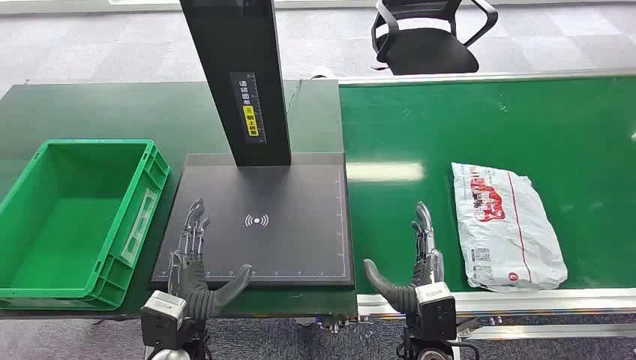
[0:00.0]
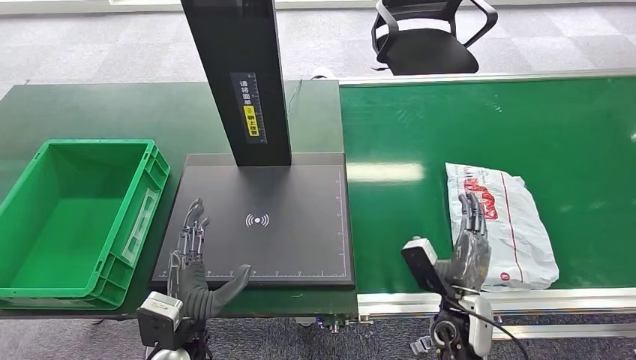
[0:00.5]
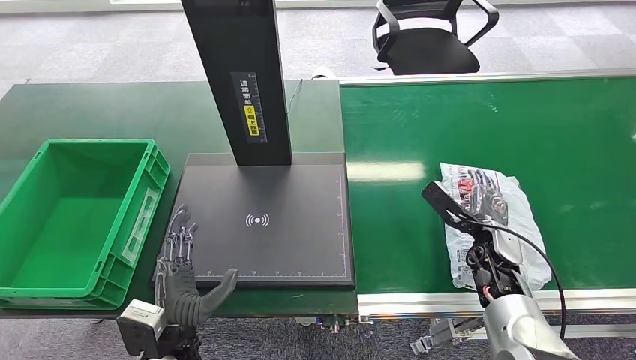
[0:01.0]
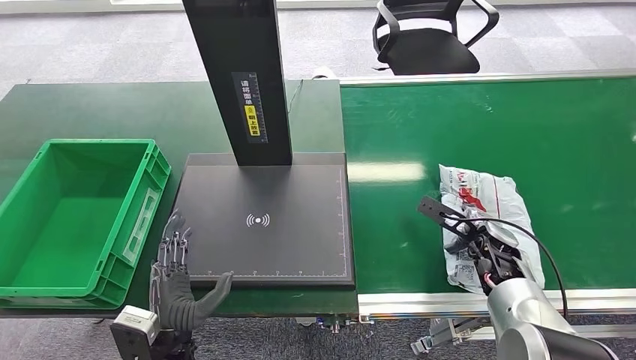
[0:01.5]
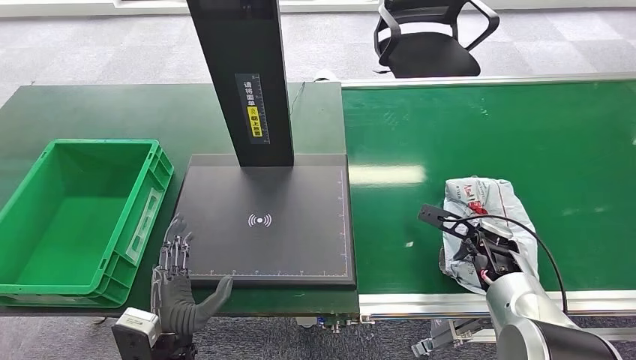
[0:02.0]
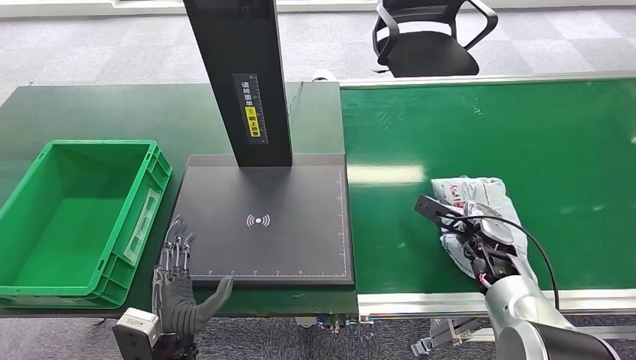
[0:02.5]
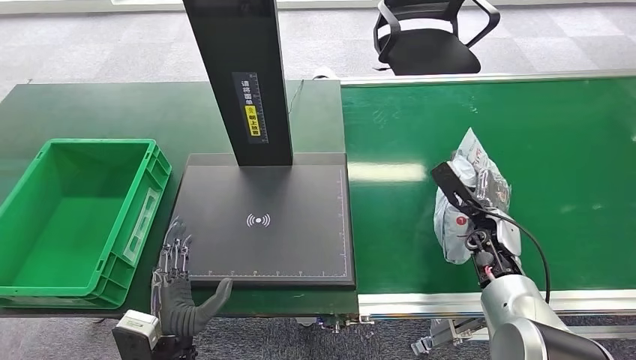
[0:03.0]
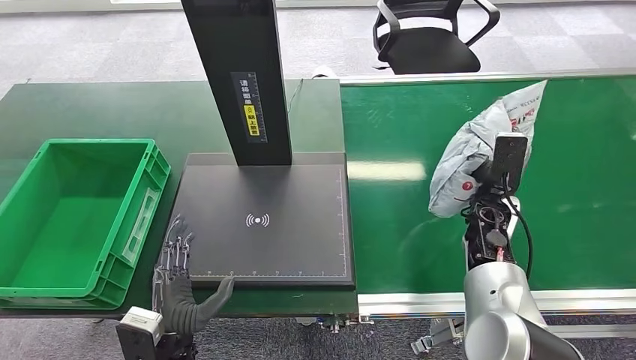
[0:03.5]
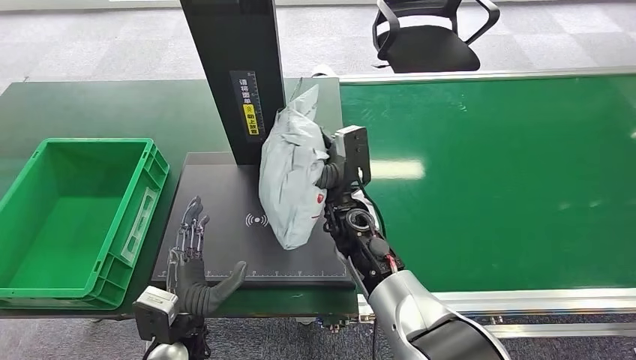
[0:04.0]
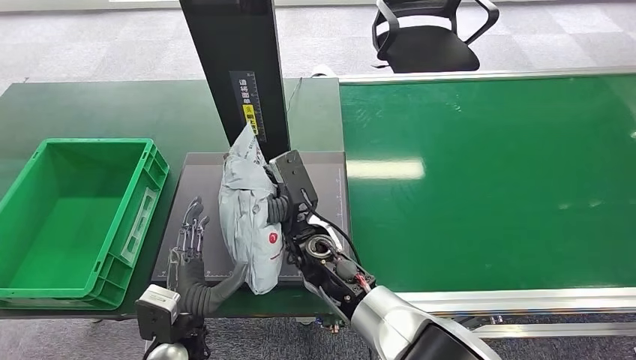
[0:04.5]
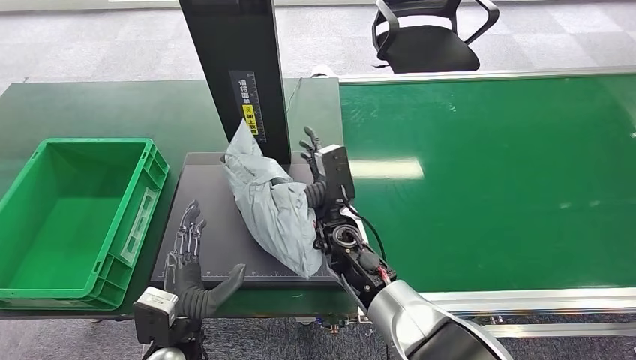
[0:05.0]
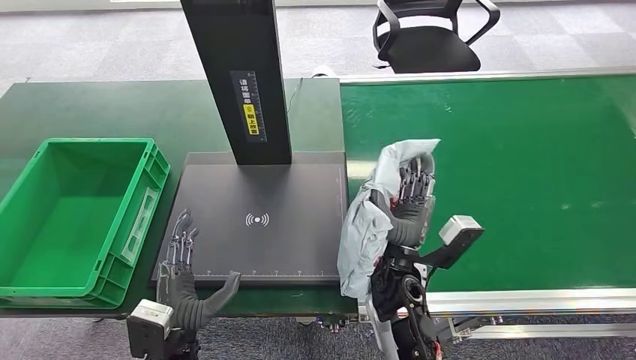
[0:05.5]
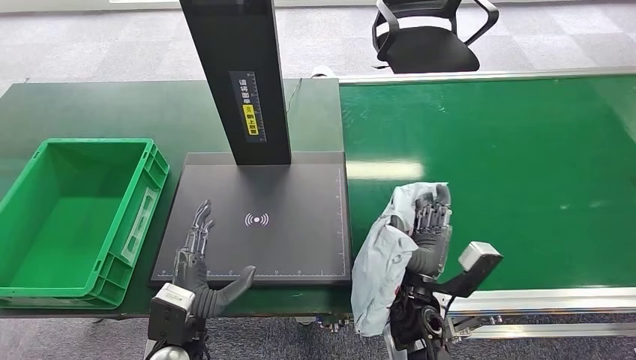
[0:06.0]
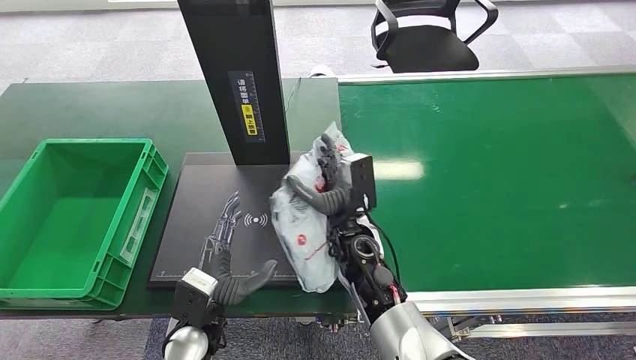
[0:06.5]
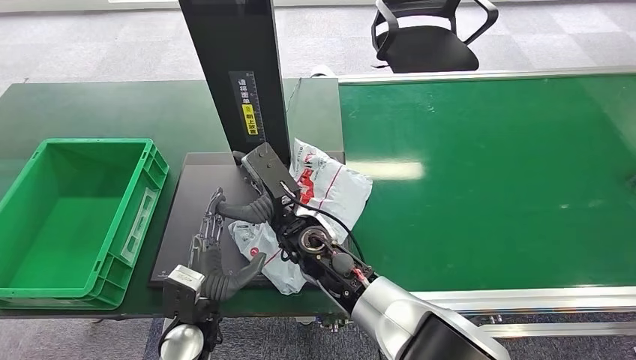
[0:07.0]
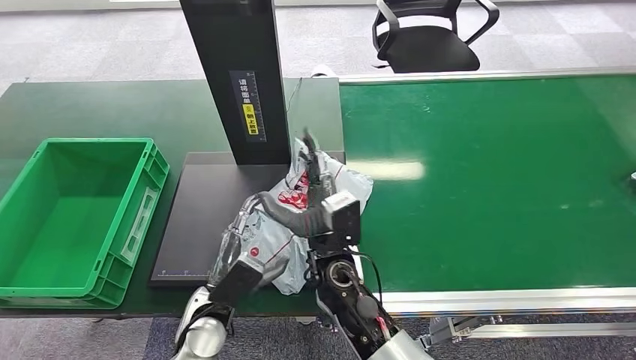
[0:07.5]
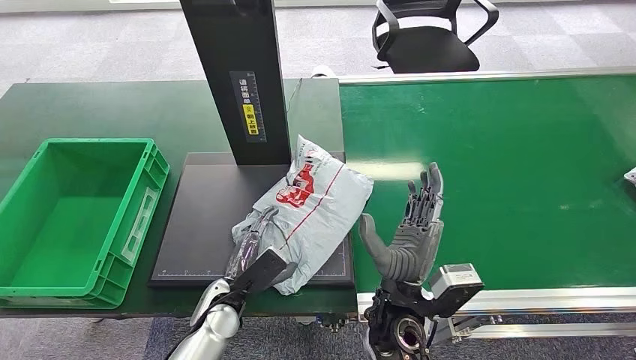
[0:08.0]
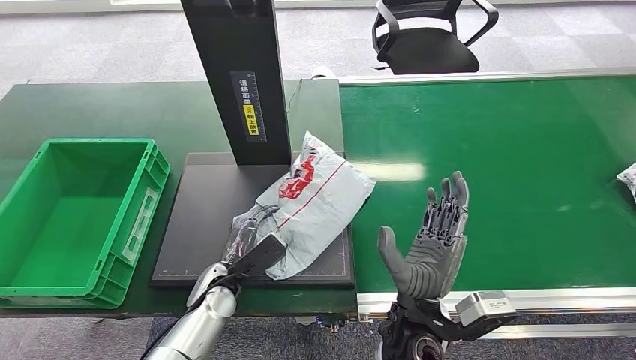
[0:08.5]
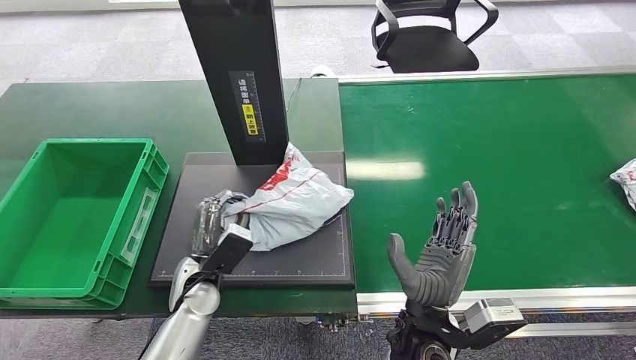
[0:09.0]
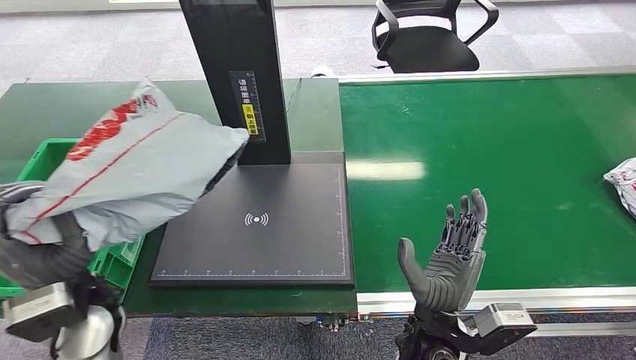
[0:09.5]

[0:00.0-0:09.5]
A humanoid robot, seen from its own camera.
Step, 0:00.0 to 0:03.5: Pick up the package from the conveyor belt.
Step, 0:04.0 to 0:08.0: Place the package onto the inbound machine.
0:04.0 to 0:05.5: The right hand goes some 10 cm backward and to the right.
0:05.5 to 0:07.5: The right hand heads to the left, covering some 10 cm, while the left hand heads forward, covering about 5 cm.

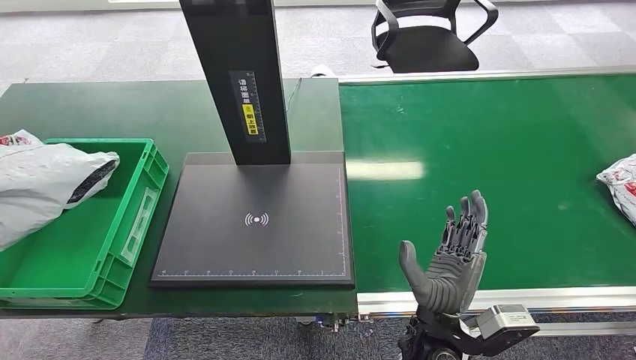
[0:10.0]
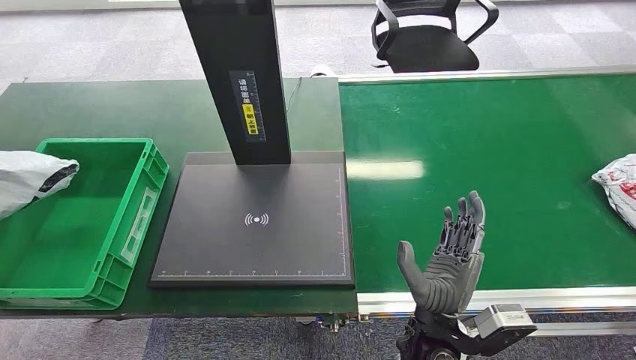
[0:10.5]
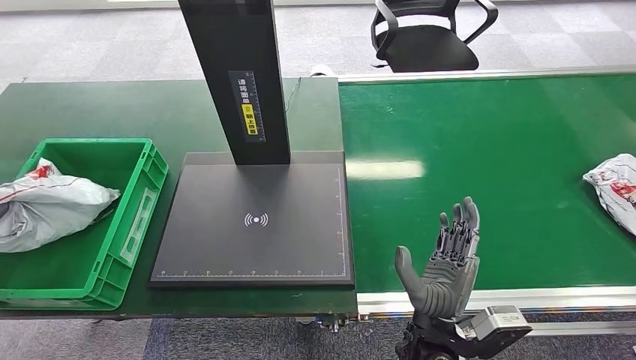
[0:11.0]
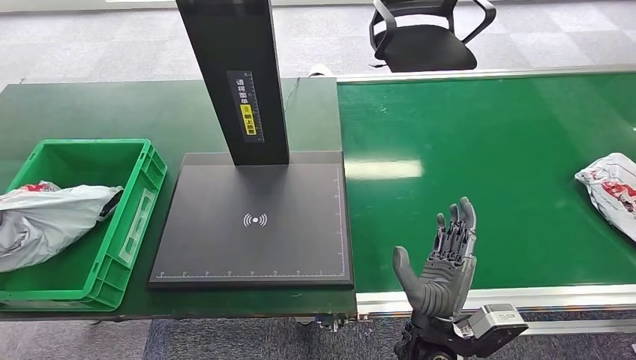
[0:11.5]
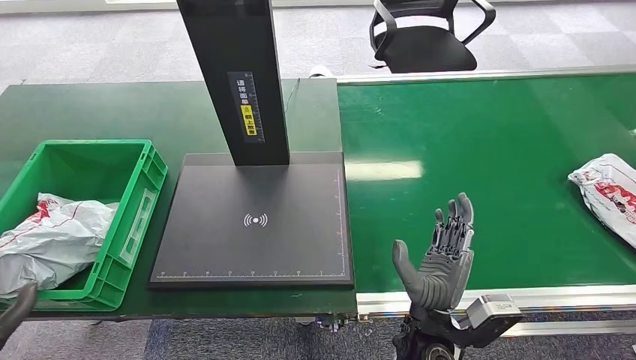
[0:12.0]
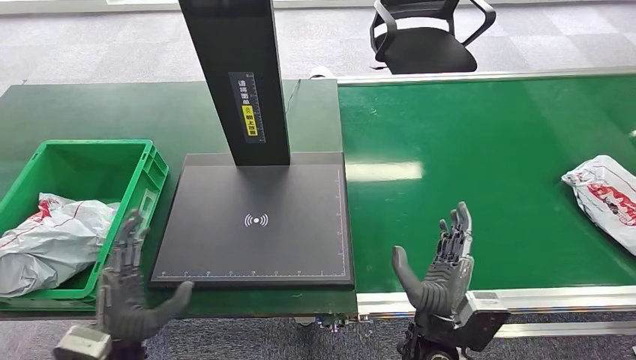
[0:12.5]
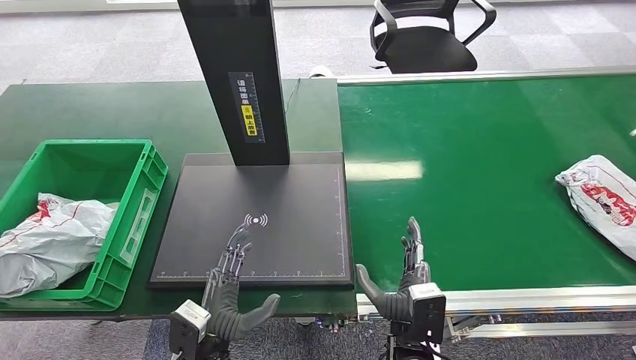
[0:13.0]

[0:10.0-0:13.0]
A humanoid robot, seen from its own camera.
Step, 0:10.0 to 0:13.0: Place the package into the parcel locker.
0:10.0 to 0:11.5: The left hand shifts about 5 cm to the left.
0:11.5 to 0:13.0: The right hand is displaced downward by approximately 5 cm. Meanwhile the left hand goes some 40 cm to the right.
